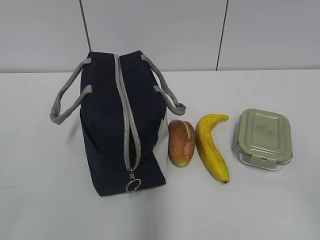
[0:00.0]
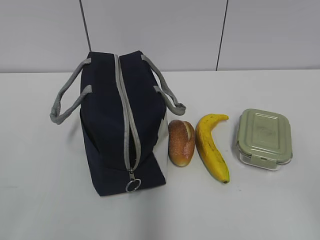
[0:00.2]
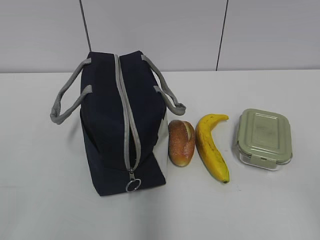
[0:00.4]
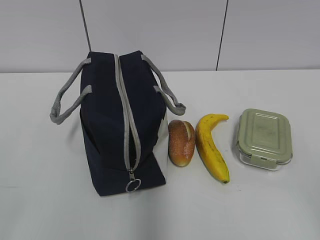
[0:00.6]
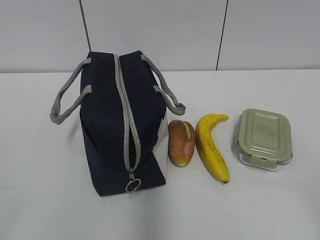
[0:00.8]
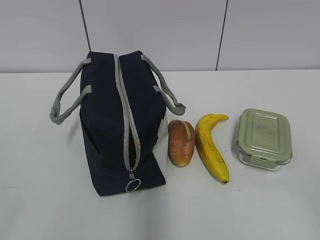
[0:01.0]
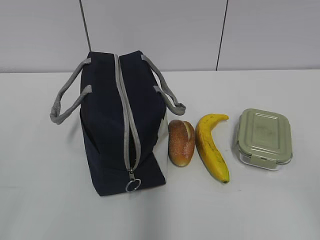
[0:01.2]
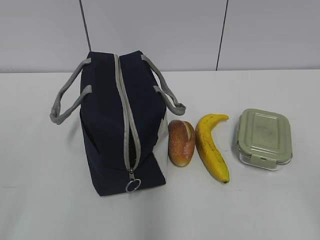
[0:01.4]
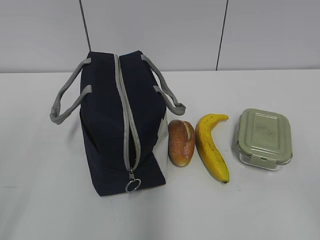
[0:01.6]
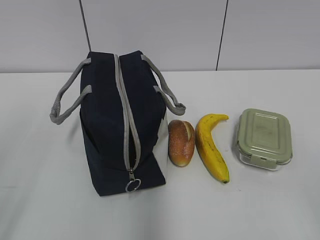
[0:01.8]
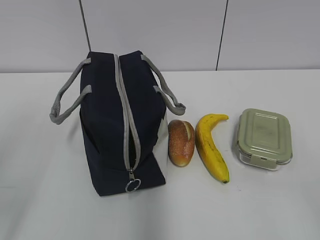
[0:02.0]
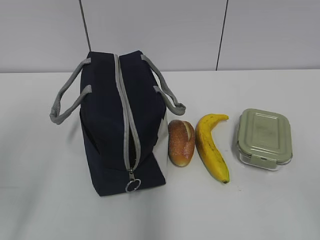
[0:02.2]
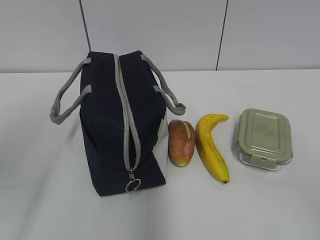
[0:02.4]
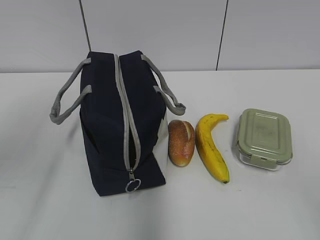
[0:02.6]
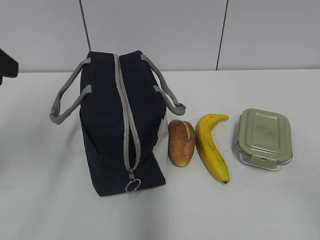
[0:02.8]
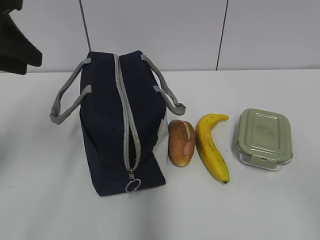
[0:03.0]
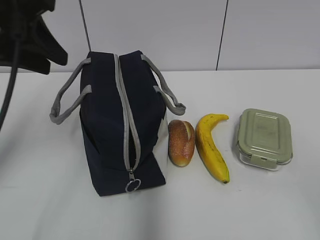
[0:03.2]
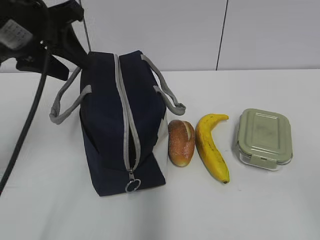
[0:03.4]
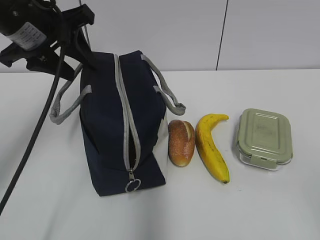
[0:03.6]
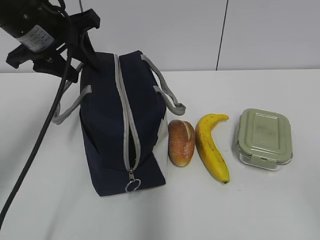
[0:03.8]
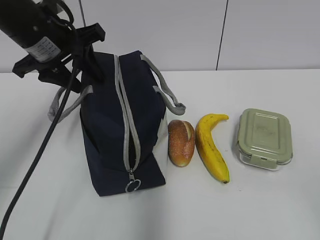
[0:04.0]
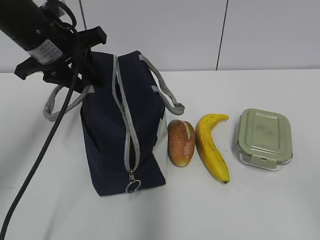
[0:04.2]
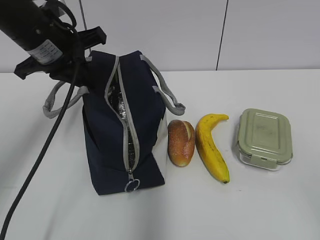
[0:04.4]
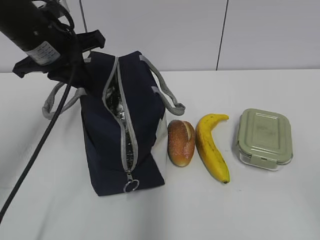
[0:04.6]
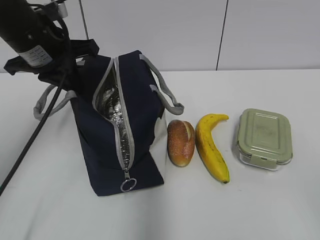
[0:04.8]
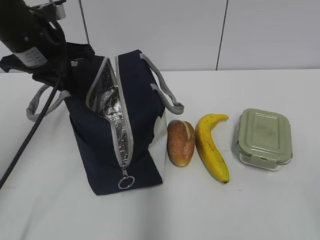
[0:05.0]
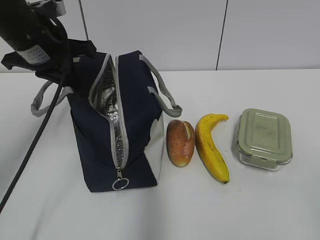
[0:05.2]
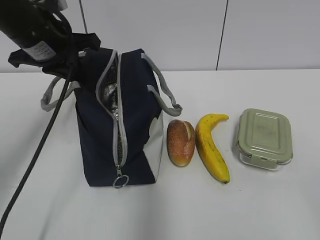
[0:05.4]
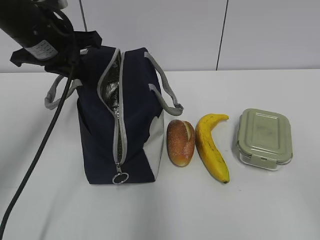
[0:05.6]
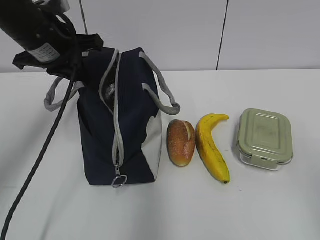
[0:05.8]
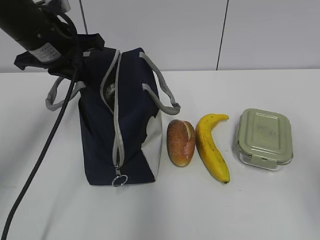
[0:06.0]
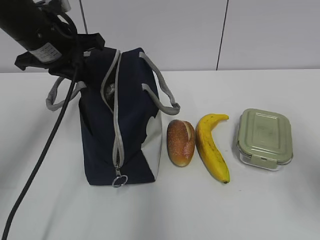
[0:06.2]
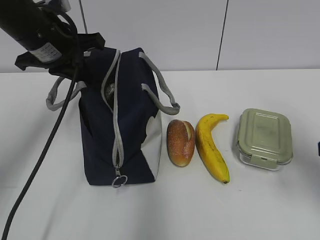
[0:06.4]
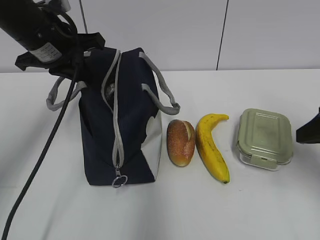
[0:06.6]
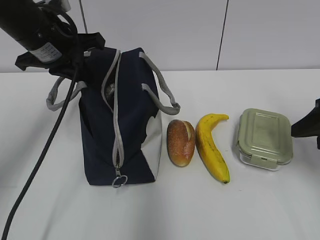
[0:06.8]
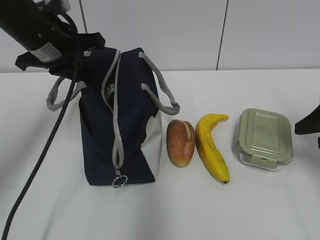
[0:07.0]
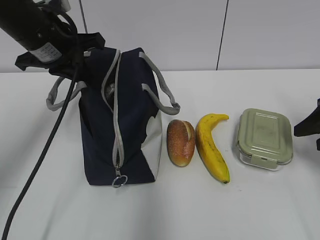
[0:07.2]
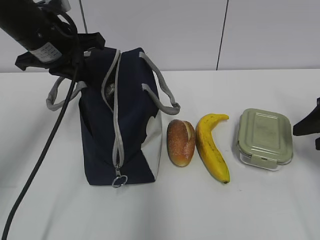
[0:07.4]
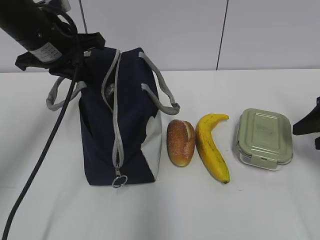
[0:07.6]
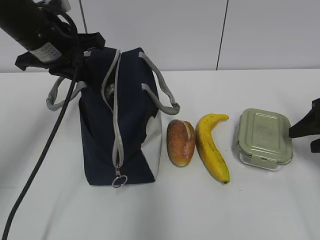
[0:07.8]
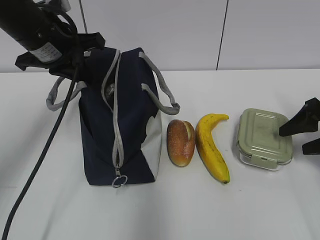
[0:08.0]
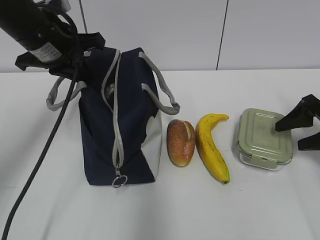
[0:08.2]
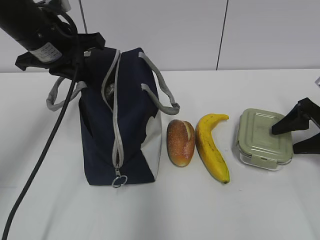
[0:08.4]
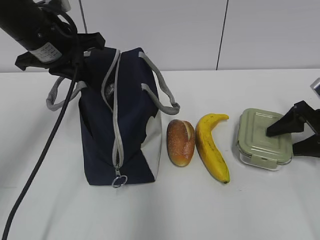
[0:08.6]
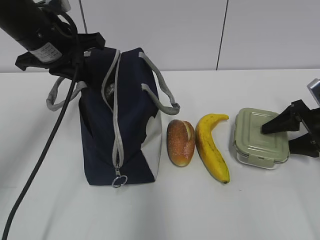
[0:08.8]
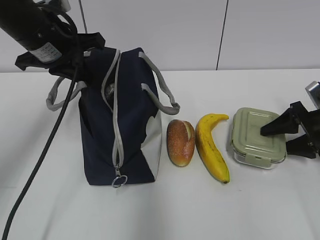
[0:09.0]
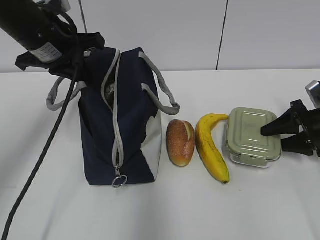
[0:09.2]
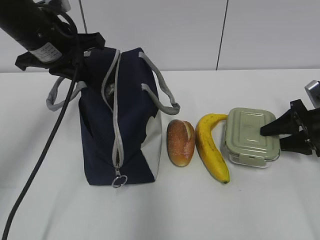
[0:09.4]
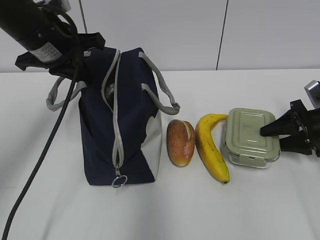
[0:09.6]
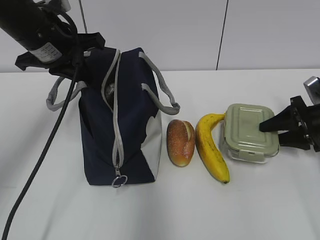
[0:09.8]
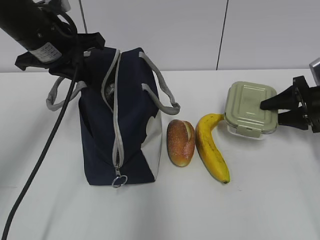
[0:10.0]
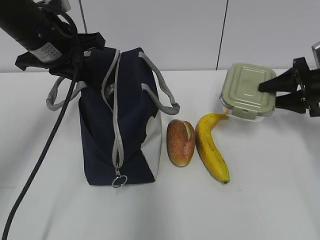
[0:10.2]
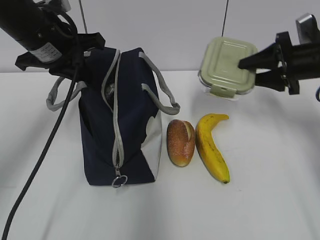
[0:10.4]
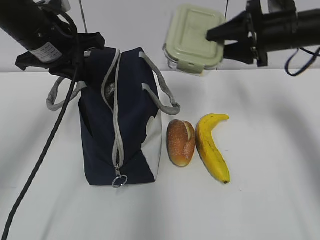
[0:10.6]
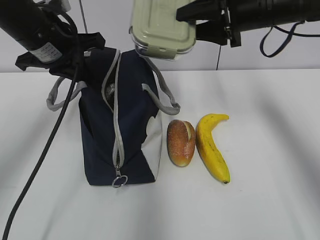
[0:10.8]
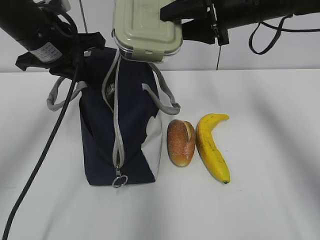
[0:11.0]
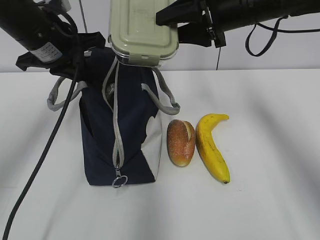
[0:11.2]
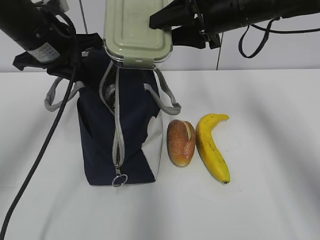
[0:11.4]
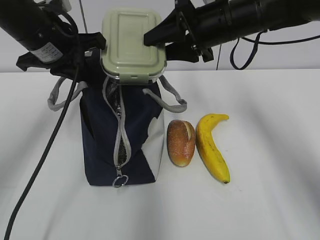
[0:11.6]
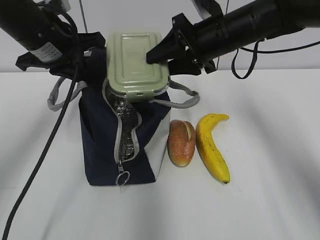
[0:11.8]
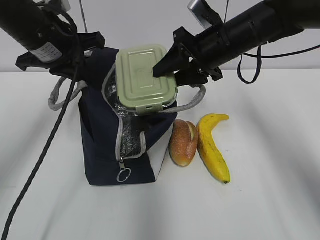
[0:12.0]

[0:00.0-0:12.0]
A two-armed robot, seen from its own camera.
Step, 0:00.0 to 0:09.4: Grab the lunch box with your right hand.
0:01.6 to 0:03.0: The left gripper is displaced forward by about 20 cm.
0:03.0 to 0:04.4: The left gripper travels forward, downward and to the right by roughly 15 cm, and closes.
0:04.4 to 0:06.0: The right gripper goes some 10 cm forward.
0:06.0 to 0:07.6: The right gripper is displaced forward and downward by roughly 20 cm.
0:07.6 to 0:09.0: The right gripper is displaced downward and forward by roughly 10 cm.
0:09.0 to 0:10.4: The right gripper shifts some 10 cm upward and to the left.
0:10.4 to 0:12.0: The right gripper shifts about 15 cm to the left.

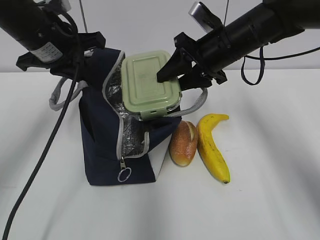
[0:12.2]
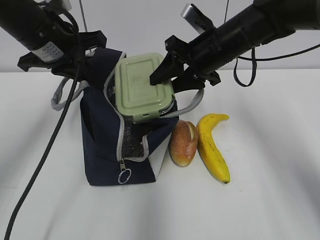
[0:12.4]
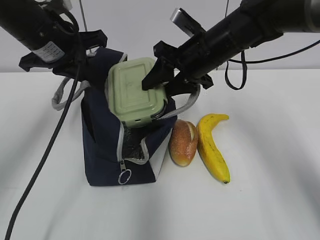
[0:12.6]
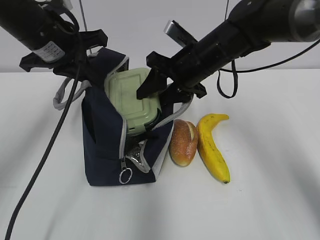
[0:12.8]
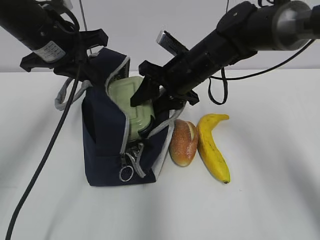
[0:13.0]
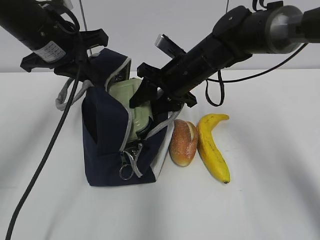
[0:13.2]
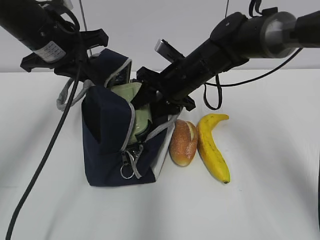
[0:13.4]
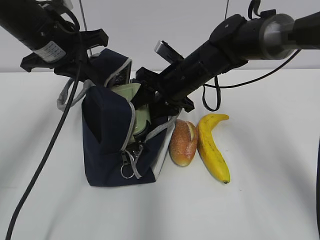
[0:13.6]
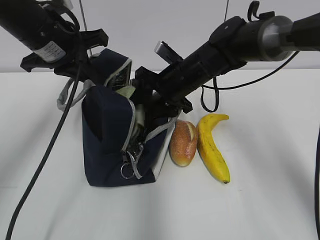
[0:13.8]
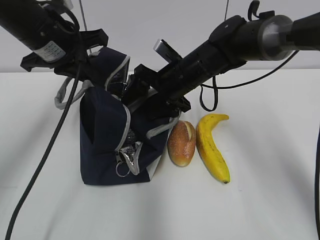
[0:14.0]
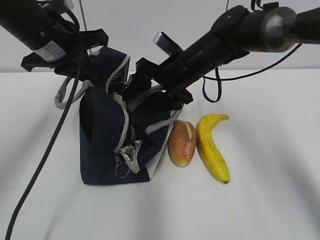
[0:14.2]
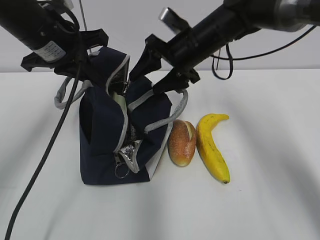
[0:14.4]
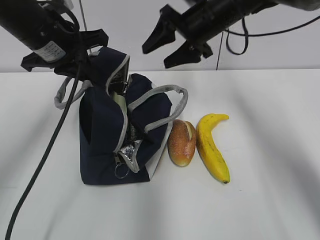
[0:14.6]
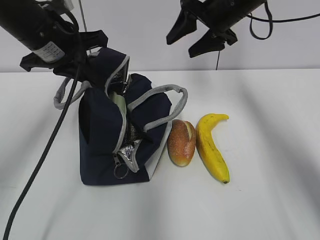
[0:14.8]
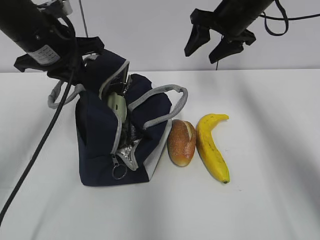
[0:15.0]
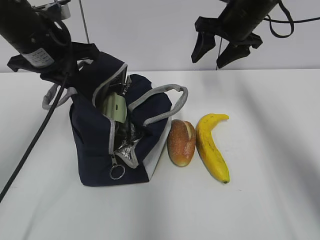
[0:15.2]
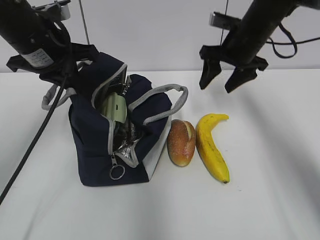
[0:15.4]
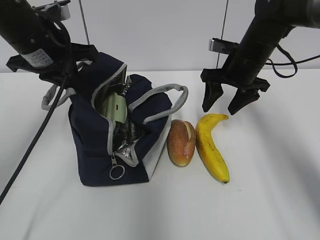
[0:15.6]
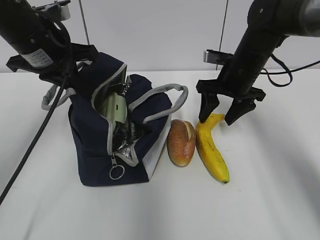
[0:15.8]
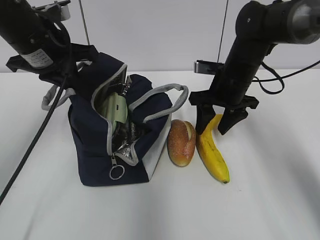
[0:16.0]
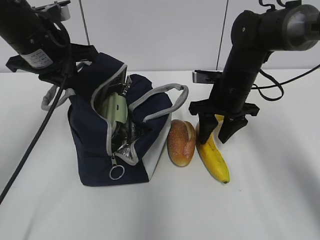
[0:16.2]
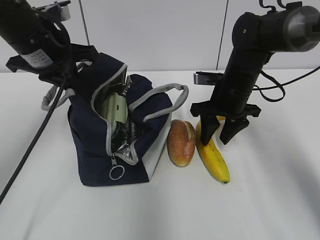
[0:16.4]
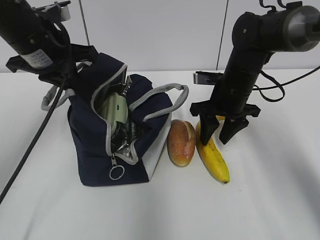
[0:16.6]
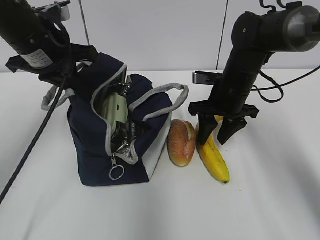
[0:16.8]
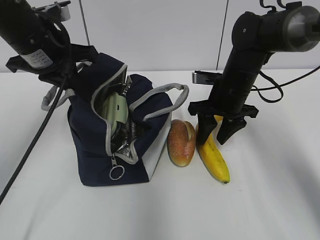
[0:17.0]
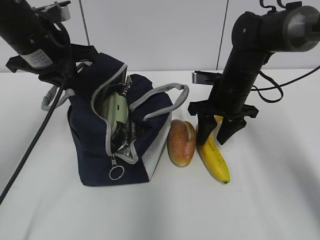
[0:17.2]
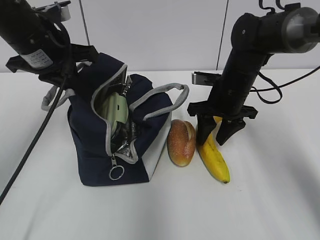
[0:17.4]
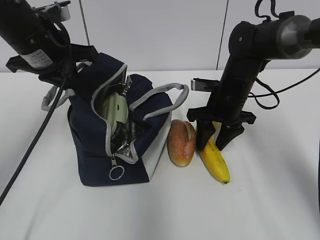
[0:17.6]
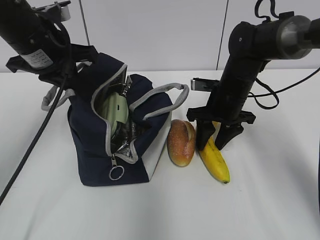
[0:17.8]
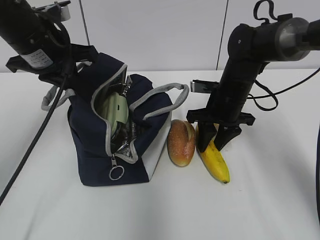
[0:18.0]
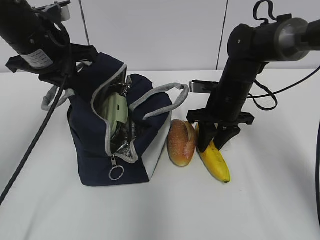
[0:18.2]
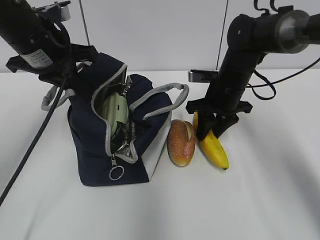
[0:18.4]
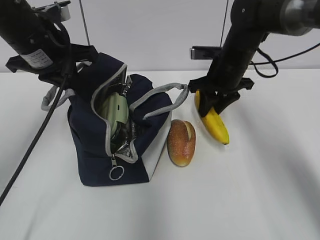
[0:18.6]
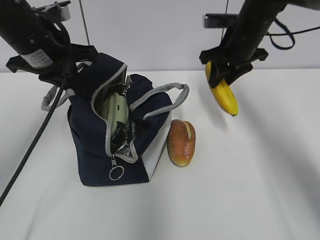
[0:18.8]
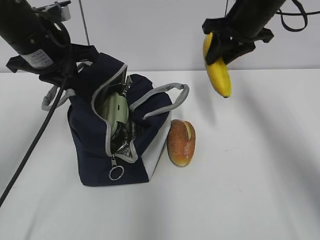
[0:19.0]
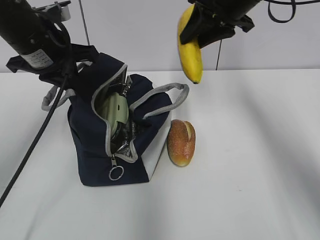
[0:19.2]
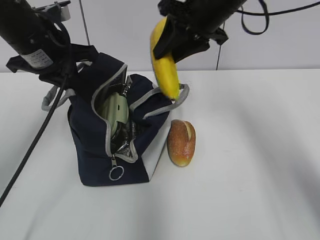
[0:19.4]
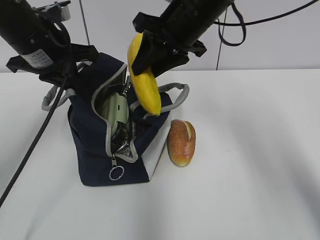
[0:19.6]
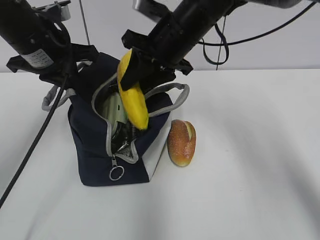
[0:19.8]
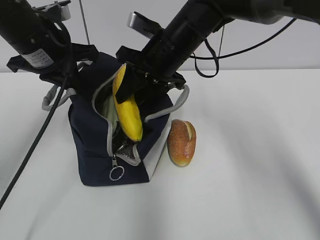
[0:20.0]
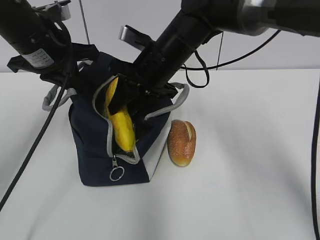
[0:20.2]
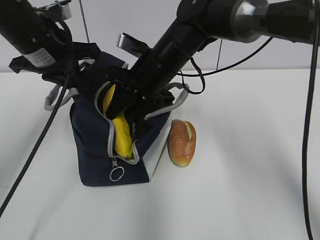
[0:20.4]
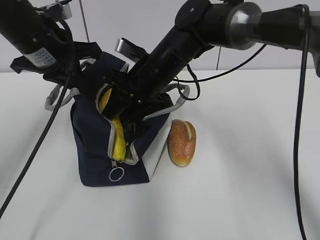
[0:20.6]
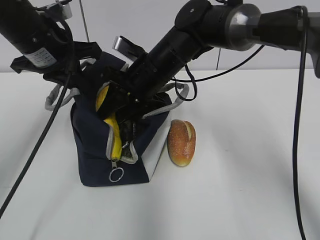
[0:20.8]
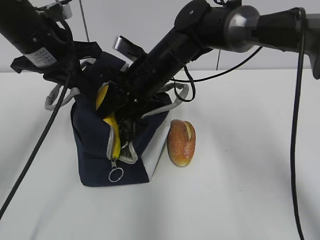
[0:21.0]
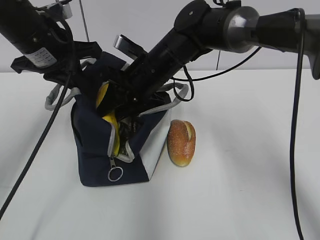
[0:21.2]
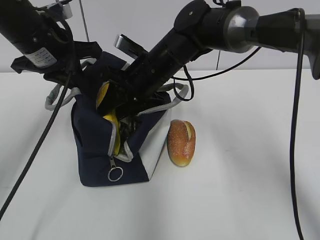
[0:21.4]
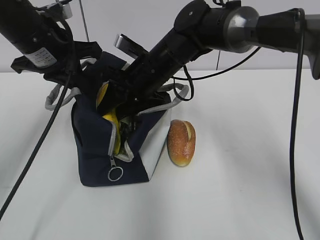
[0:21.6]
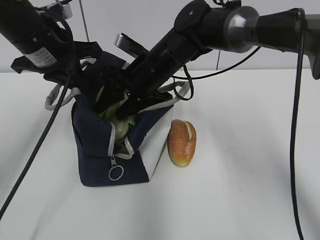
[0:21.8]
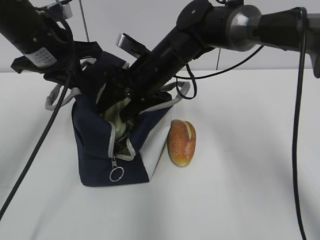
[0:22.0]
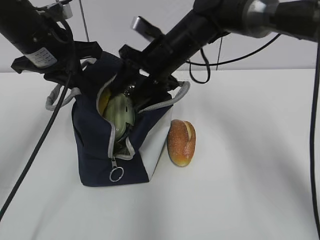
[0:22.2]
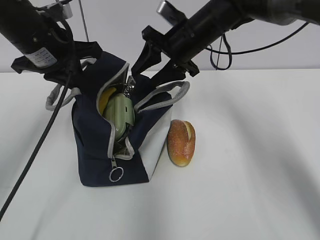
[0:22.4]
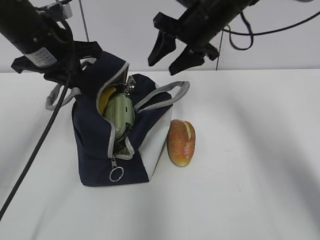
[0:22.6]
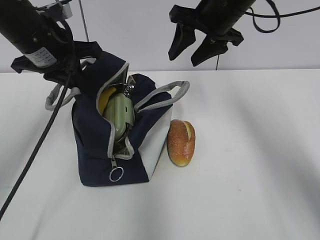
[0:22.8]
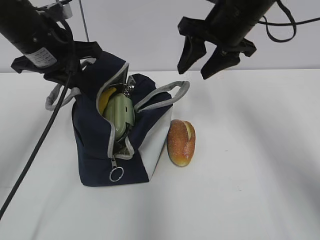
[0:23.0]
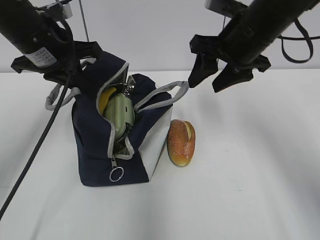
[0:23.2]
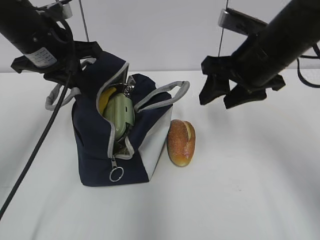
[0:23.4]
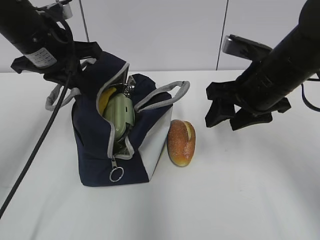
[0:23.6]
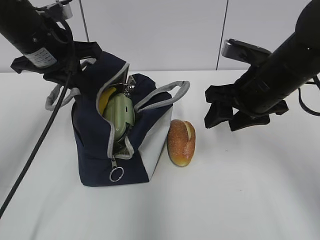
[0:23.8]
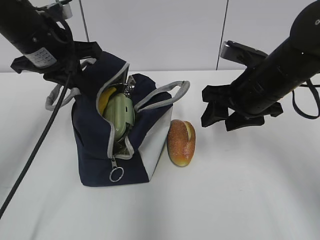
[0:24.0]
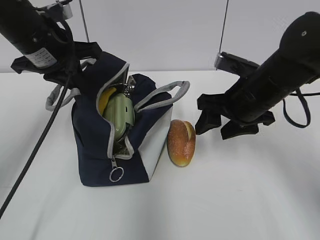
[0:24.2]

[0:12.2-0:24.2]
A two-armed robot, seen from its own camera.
Step, 0:12.2 to 0:14.0: Place it into the bag with your right hand.
Step, 0:14.2 to 0:18.0: Grab the banana with your right hand.
Step, 0:18.2 to 0:22.0: Place it into the bag with your right hand.
0:12.2 to 0:13.8: The right gripper goes roughly 10 cm to the left and downward.
0:13.8 to 0:15.2: The right gripper goes some 15 cm to the right and upward.
0:15.2 to 0:16.6: The right gripper shifts some 10 cm downward and backward.
0:16.6 to 0:18.2: The grippers make only small movements.
0:18.2 to 0:19.8: The right gripper heads upward and to the left, covering roughly 15 cm.
0:19.8 to 0:21.2: The right gripper moves downward, some 5 cm.
0:21.2 to 0:22.6: The right gripper goes approximately 10 cm to the right and upward.
0:22.6 to 0:24.2: The right gripper moves backward, downward and to the right, some 15 cm.
